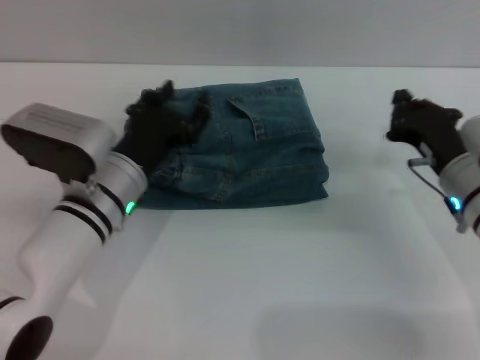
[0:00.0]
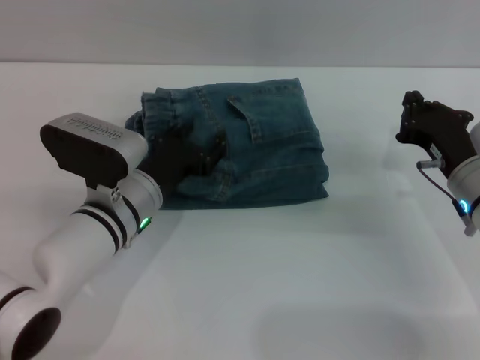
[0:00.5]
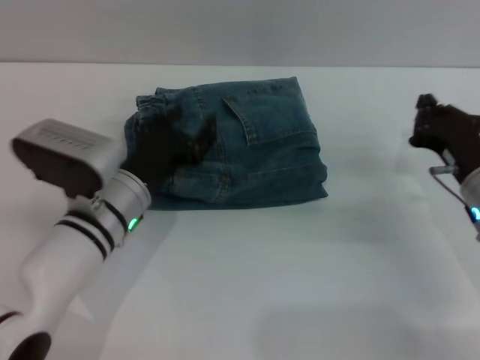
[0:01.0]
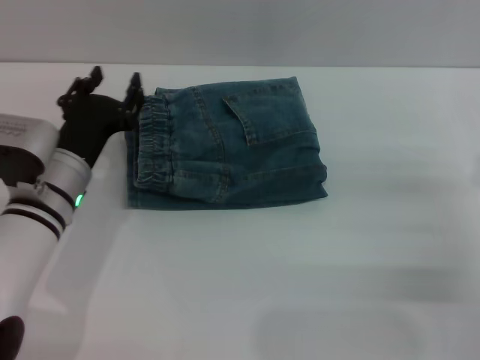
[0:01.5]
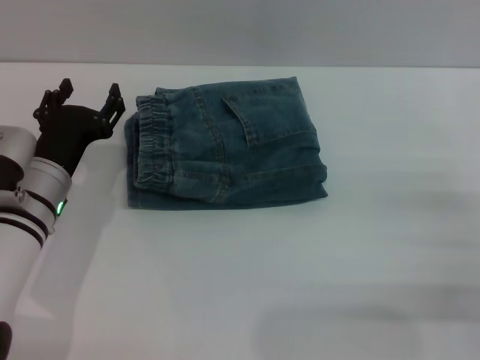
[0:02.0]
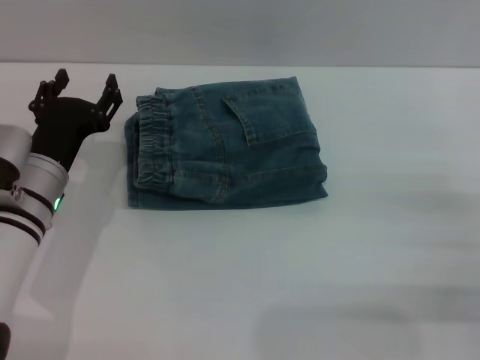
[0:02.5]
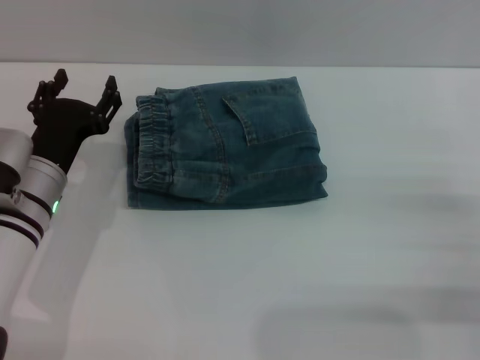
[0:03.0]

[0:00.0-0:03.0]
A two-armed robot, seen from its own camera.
0:00.0 to 0:01.5: The right gripper goes about 10 cm to the right and backward.

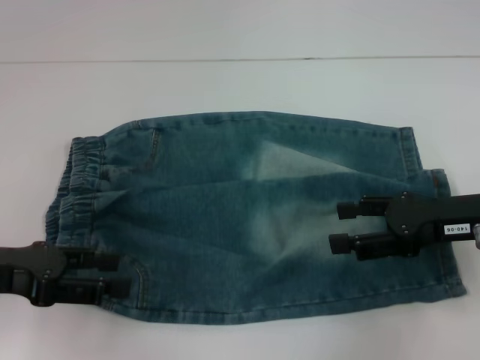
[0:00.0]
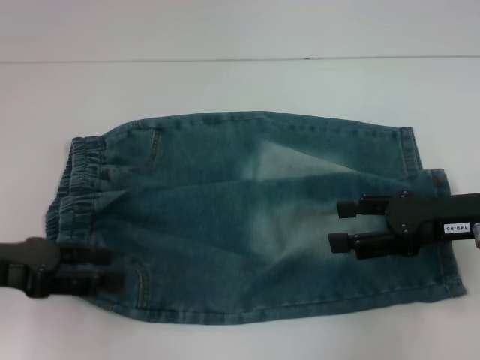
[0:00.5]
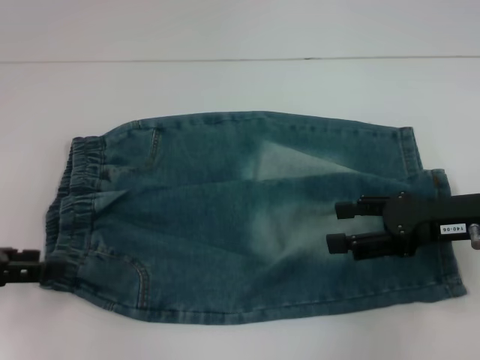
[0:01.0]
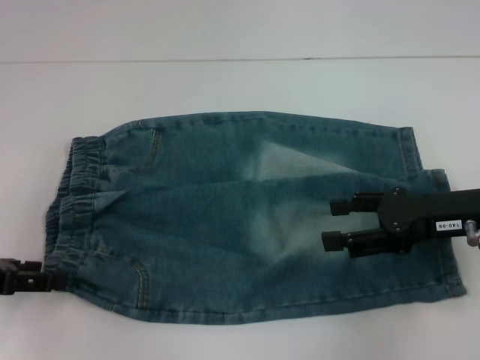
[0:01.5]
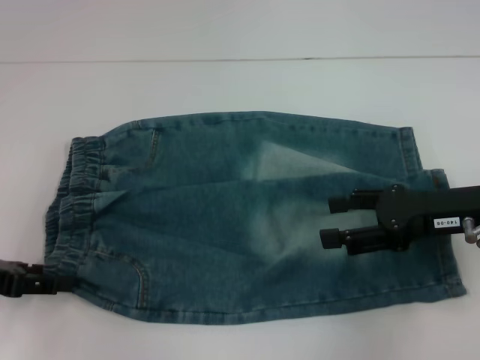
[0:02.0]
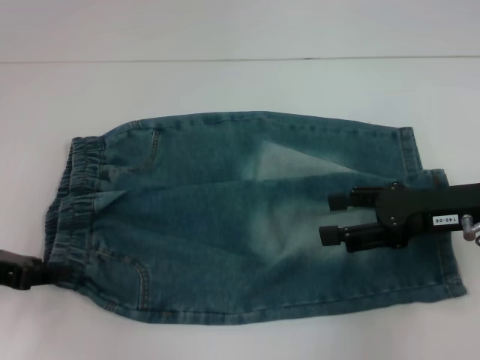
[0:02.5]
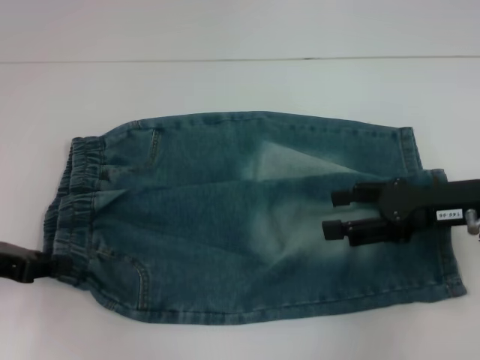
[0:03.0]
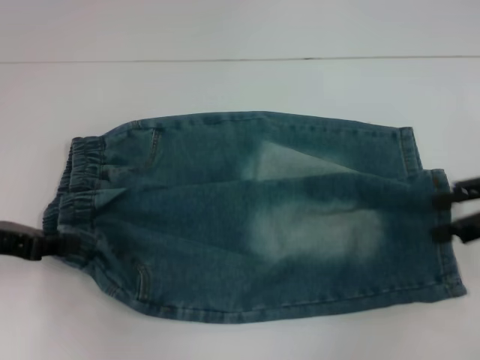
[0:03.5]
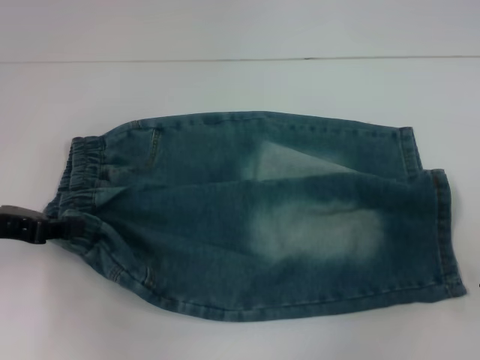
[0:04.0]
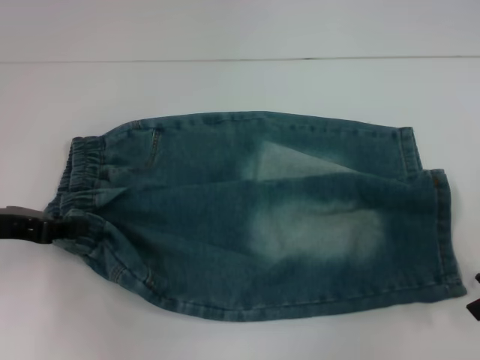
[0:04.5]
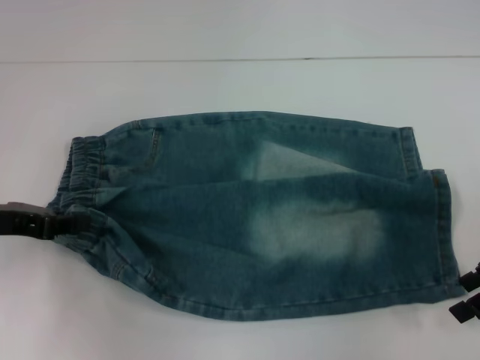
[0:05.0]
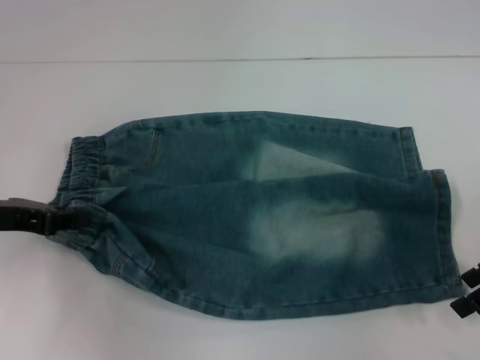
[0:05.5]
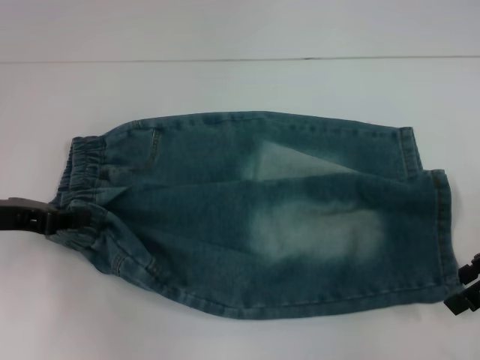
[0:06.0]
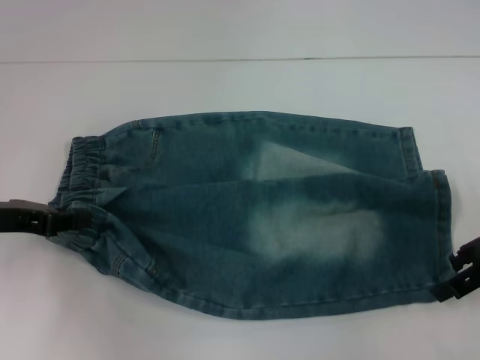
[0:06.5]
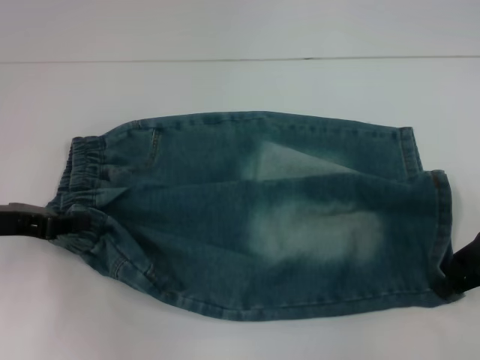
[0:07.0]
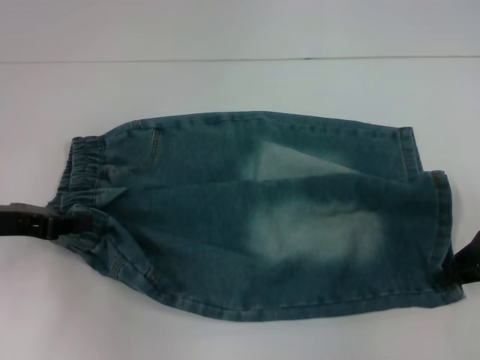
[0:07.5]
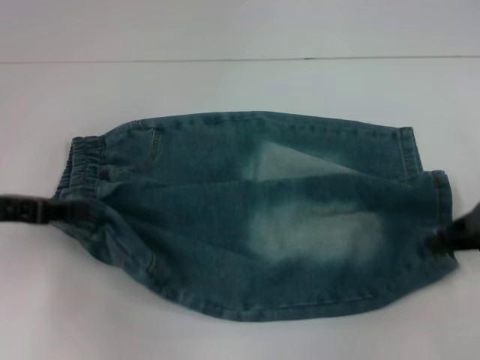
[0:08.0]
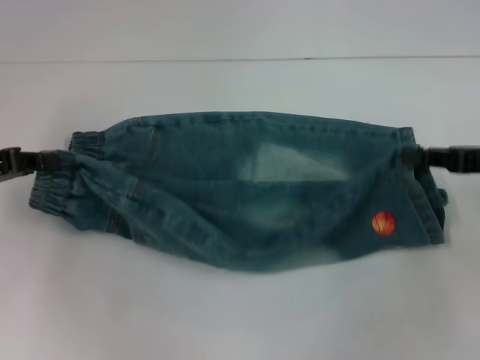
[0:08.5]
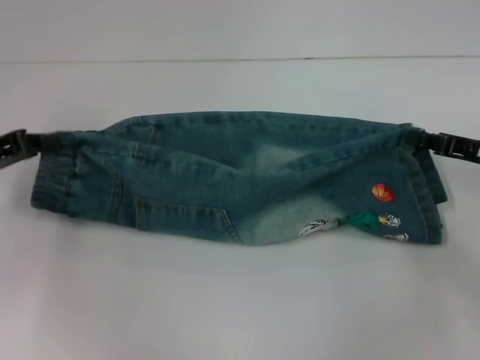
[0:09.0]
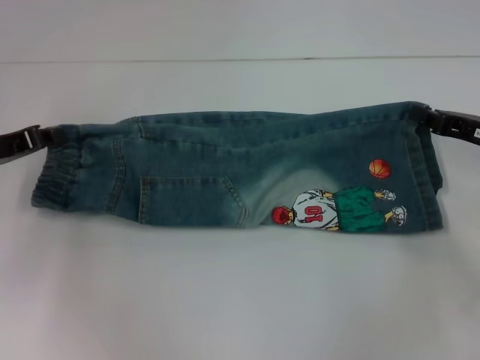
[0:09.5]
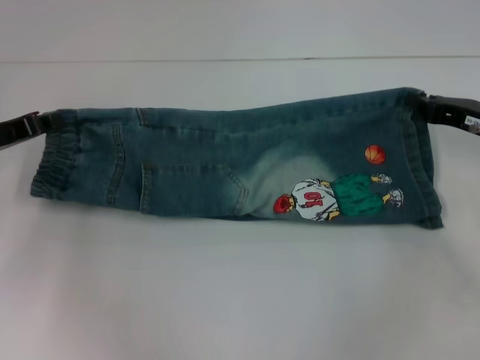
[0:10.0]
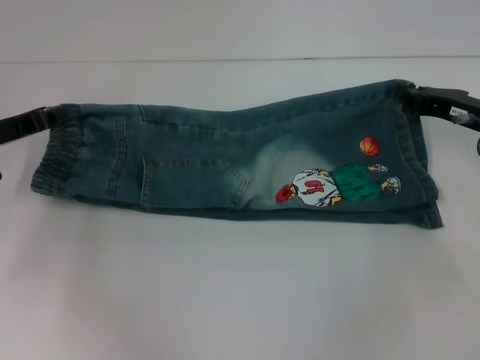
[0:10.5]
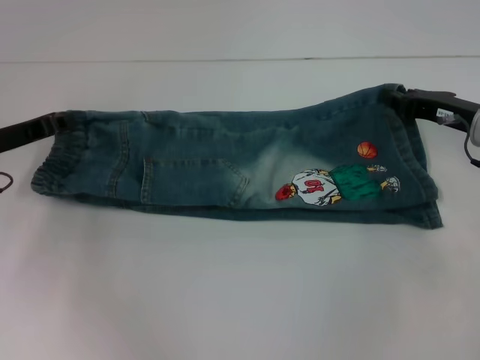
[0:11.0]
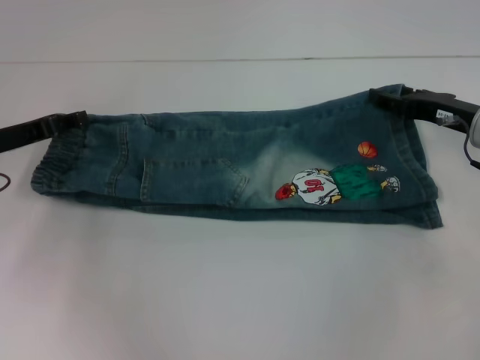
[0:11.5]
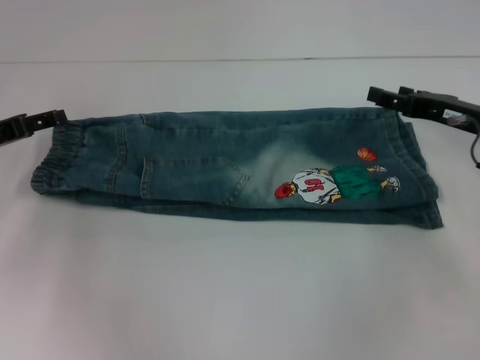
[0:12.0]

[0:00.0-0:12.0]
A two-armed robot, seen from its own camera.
Step, 0:00.0 to 0:02.5: Hold the lower left waistband with your left hand.
Step, 0:03.0 to 0:07.5: Grab the lower right pant leg with your right hand.
Step, 0:08.0 to 0:11.5: Fold upward with your right hand.
0:00.0 to 0:02.0: The left gripper moves some 5 cm.
0:02.0 to 0:04.0: The left gripper closes its fingers. Meanwhile the right gripper travels to the right by some 10 cm.
0:04.0 to 0:06.0: The right gripper shifts by some 5 cm.
0:06.0 to 0:08.0: The right gripper closes.
0:08.0 to 0:10.0: The left gripper travels forward by some 5 cm; the right gripper changes place by roughly 5 cm.
0:10.0 to 0:12.0: The right gripper opens its fingers, while the left gripper opens its fingers.

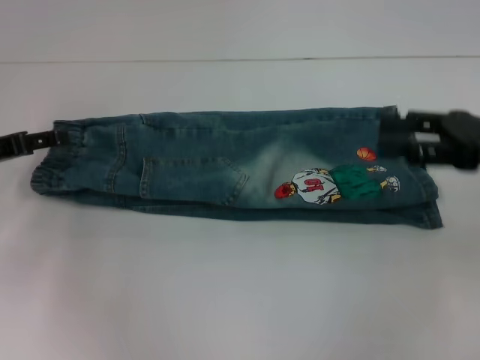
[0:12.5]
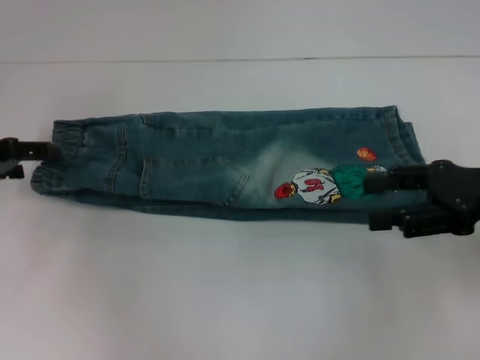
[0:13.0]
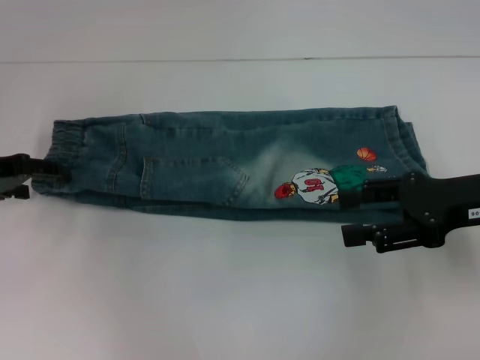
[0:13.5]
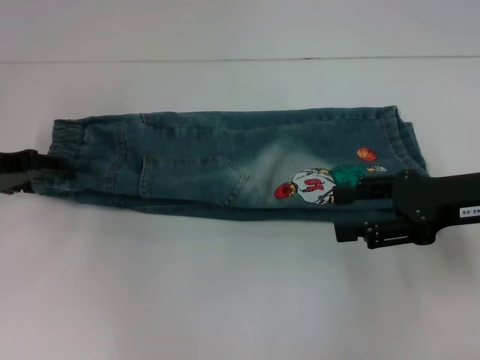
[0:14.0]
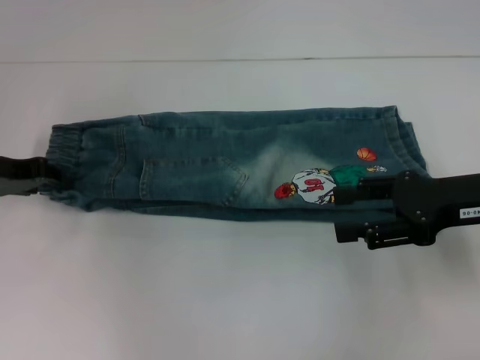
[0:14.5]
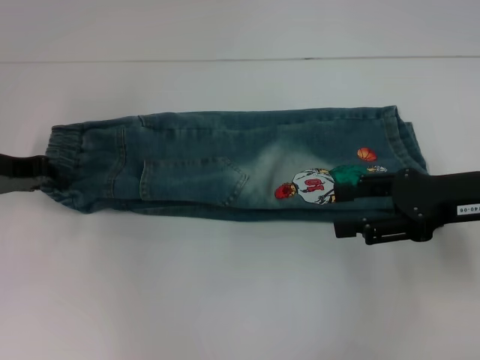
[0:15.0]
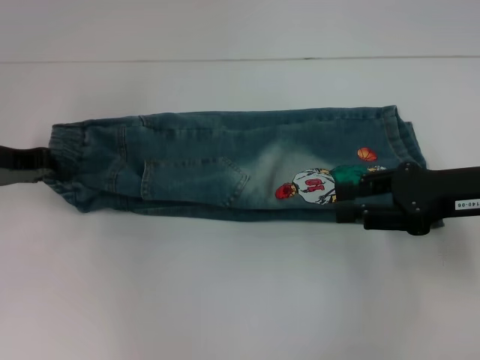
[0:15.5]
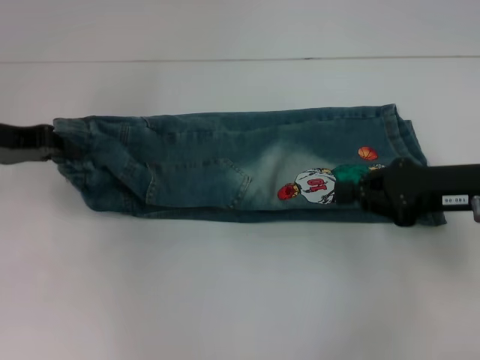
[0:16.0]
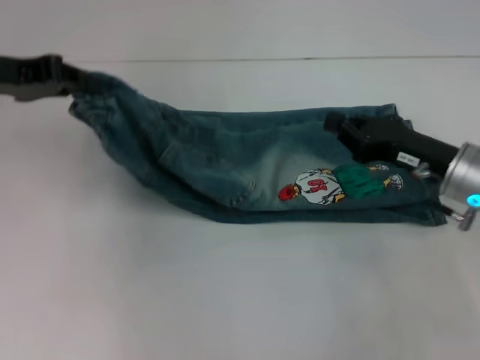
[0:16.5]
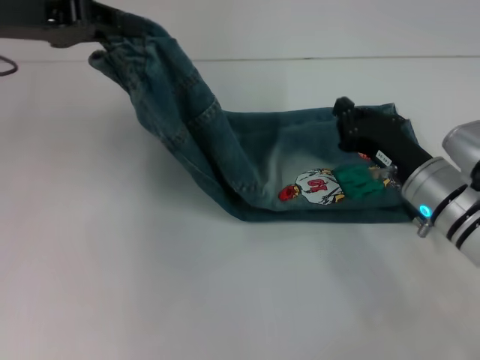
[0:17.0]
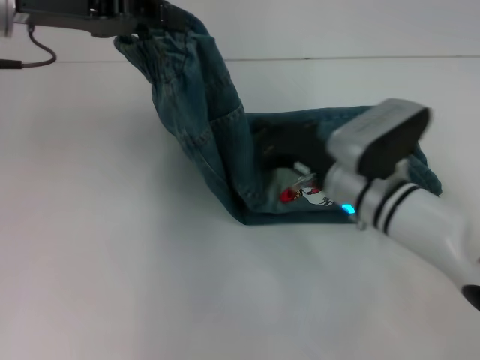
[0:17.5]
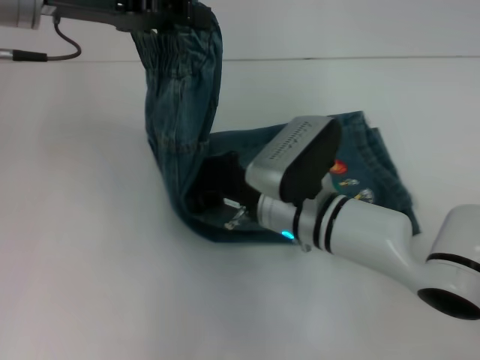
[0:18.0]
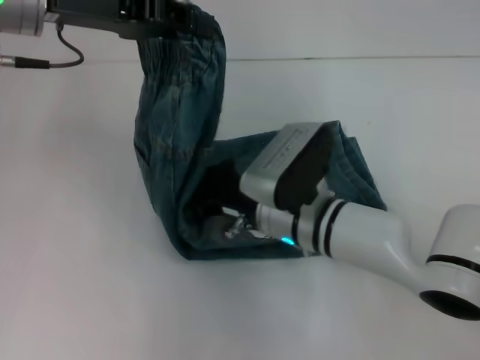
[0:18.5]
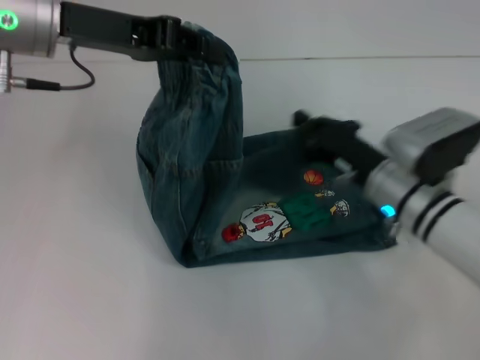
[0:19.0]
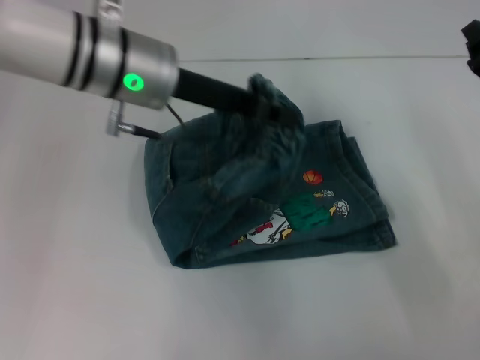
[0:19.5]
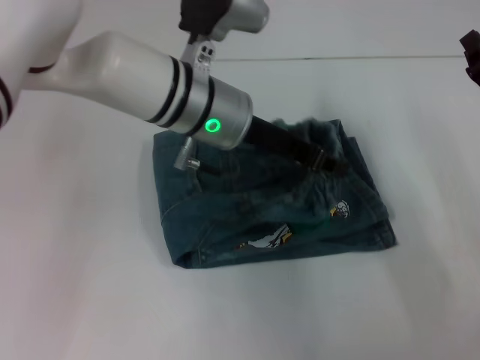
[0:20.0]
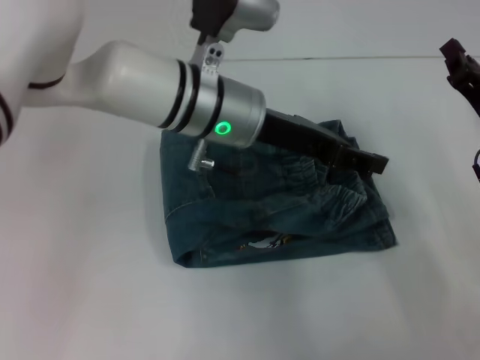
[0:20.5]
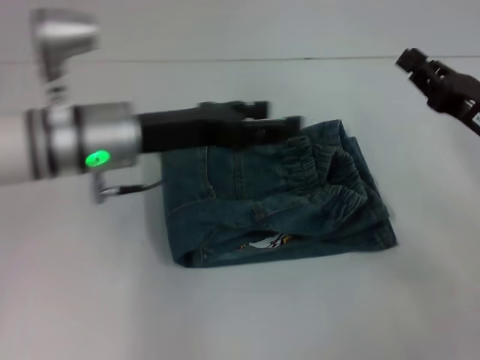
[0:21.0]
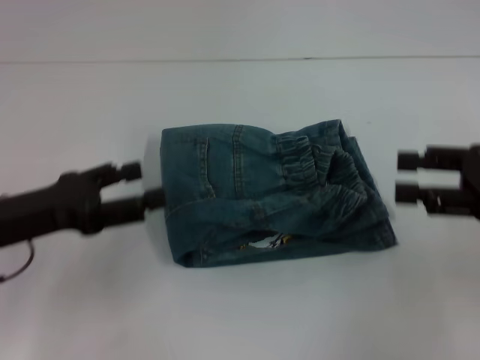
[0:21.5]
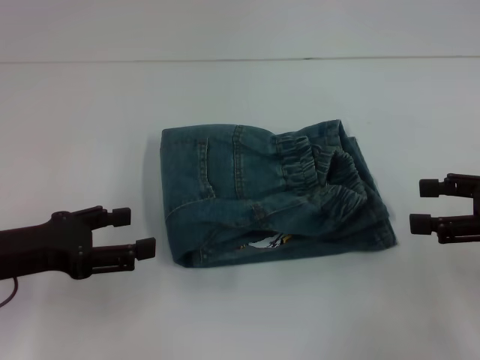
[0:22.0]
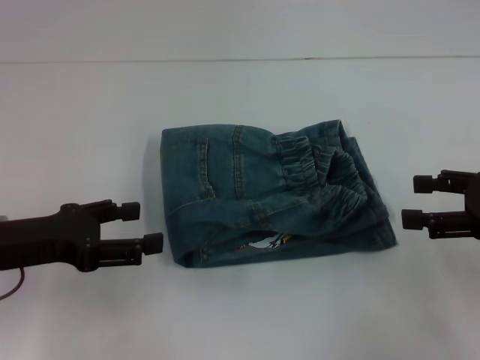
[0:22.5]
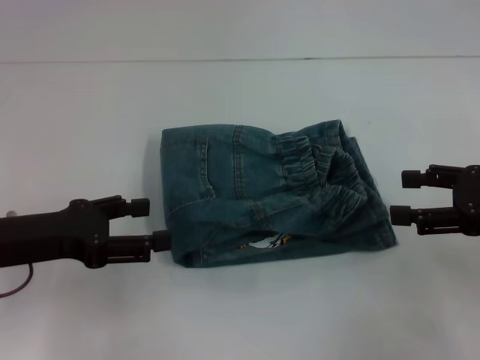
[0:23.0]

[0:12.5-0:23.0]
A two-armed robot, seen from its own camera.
Step, 0:12.5 to 0:14.5: Hold the waistband with your left hand.
Step, 0:15.0 to 0:18.5: Press the middle of the pants with your right hand.
Step, 0:19.0 to 0:21.0: Fold to the right with your left hand.
0:12.5 to 0:14.5: The left gripper closes.
0:14.5 to 0:16.5: The right gripper moves downward, some 5 cm, and closes; the left gripper goes some 10 cm upward, and closes its fingers.
0:16.5 to 0:19.0: The left gripper goes roughly 10 cm to the right; the right gripper is displaced to the left by roughly 10 cm.
0:19.0 to 0:21.0: The left gripper heads downward, covering some 10 cm, goes to the right and returns, approximately 15 cm each way, and opens up. The right gripper is displaced to the right and upward by approximately 15 cm.
0:21.0 to 0:23.0: The left gripper moves to the left and backward, about 15 cm. Meanwhile the right gripper shifts by roughly 5 cm, and opens up.
